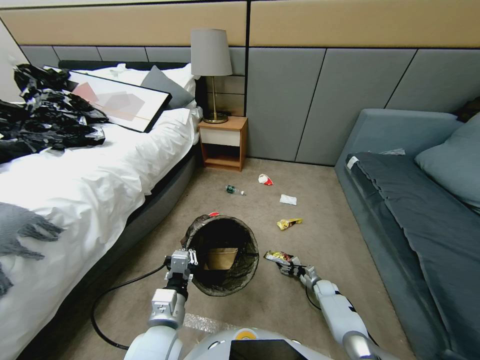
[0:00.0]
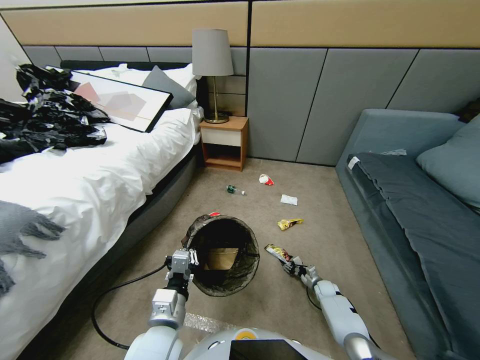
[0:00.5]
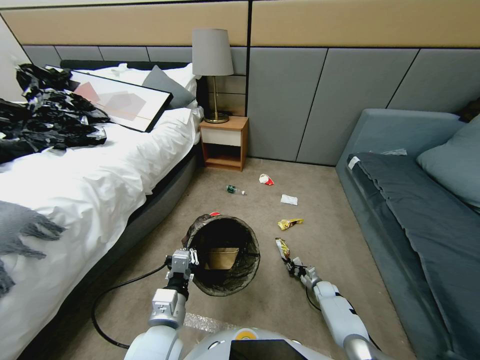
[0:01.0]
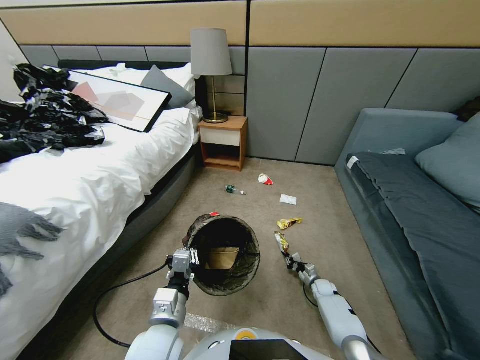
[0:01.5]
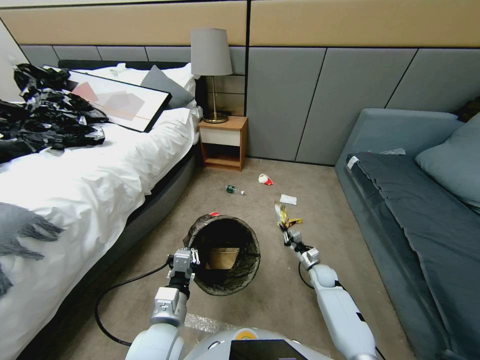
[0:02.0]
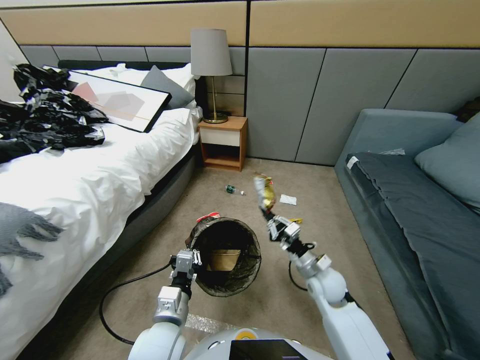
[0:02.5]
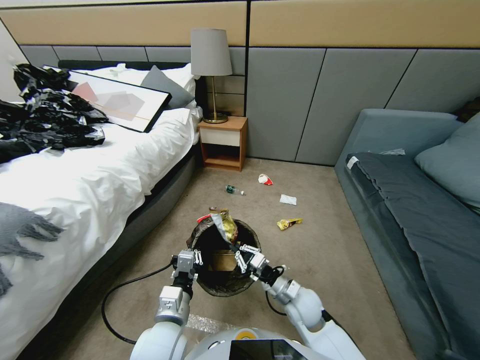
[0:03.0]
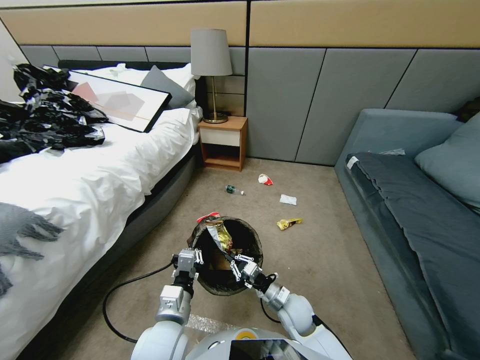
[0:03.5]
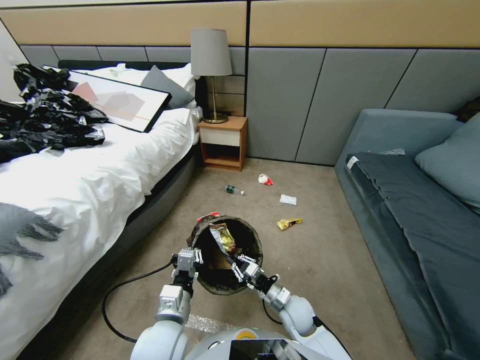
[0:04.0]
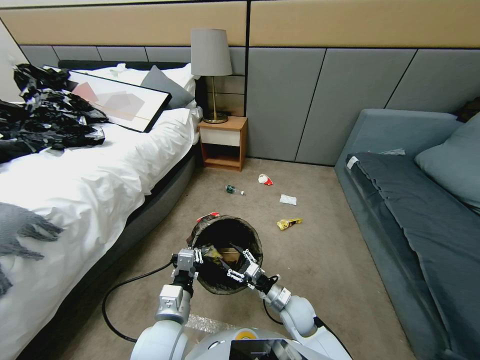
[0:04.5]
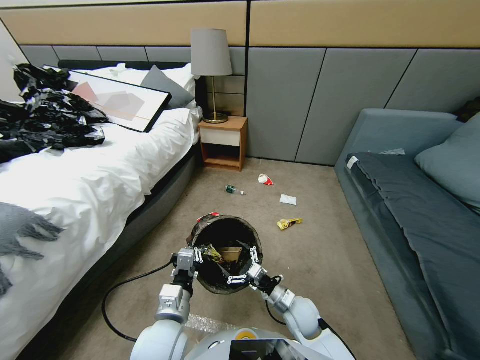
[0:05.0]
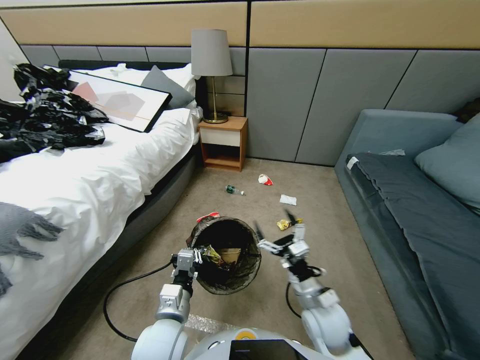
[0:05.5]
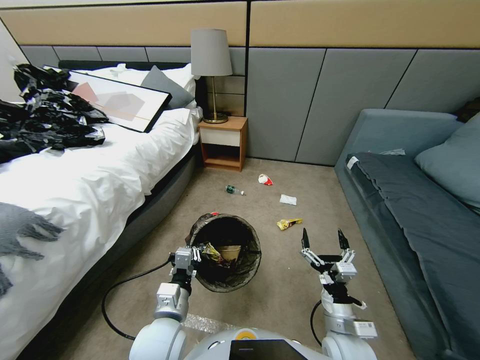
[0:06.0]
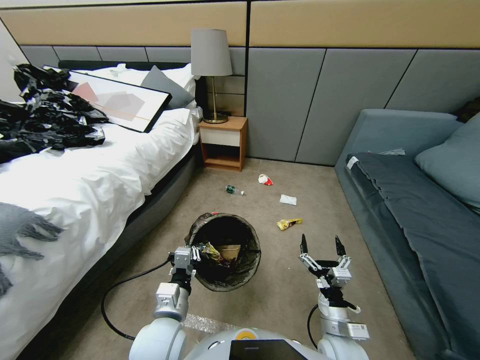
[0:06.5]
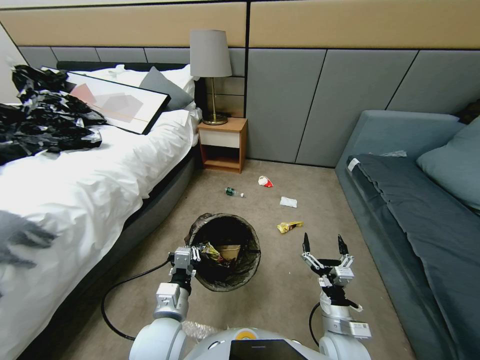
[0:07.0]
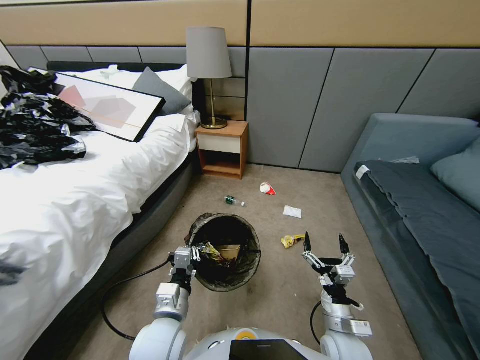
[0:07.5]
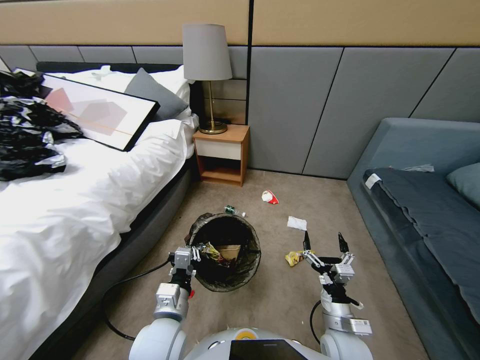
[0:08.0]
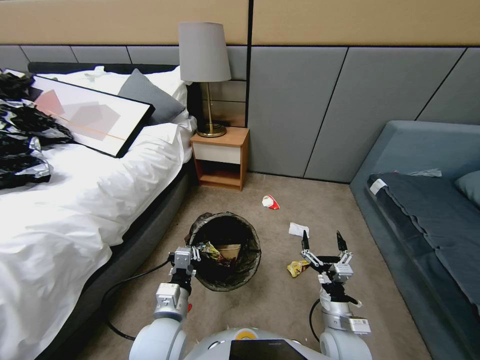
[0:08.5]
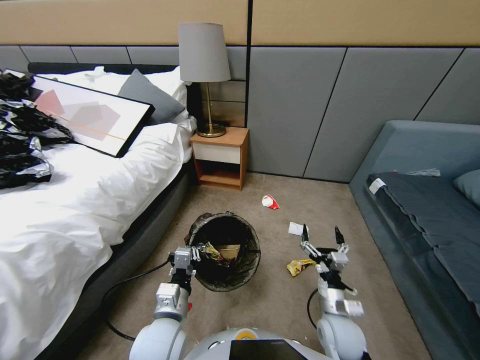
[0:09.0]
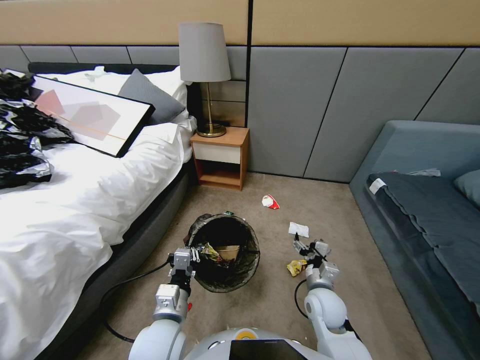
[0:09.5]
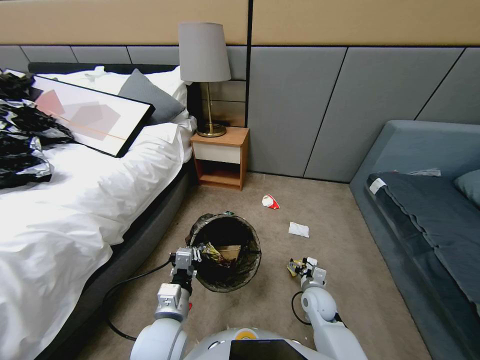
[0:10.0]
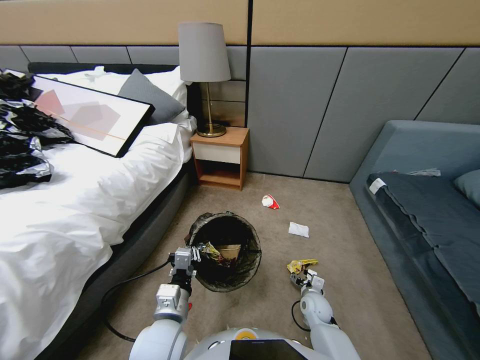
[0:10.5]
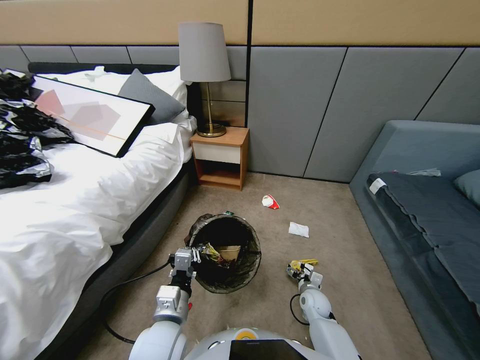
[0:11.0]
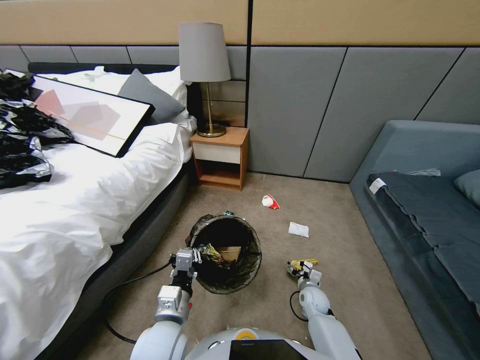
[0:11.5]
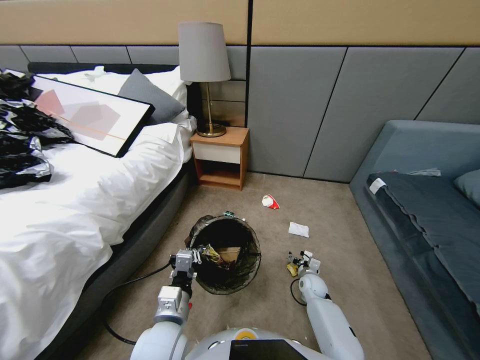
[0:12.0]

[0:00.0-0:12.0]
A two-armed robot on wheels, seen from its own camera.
Task of the whole recording: Pick up the trash bin, then pick up the garbage from the floor and place it into the trash bin.
0.0 to 2.0 s: The right gripper shifts approximately 20 cm upward and to the left, and closes.
2.0 to 4.0 s: The right gripper is displaced to the left and backward by approximately 20 cm.
4.0 to 6.0 s: The right gripper goes roughly 15 cm backward, upward and to the right, and opens up.
8.0 to 10.0 s: The right gripper is displaced forward and downward by roughly 15 cm.
10.0 to 12.0 s: The right gripper shifts roughly 10 cm forward and downward.

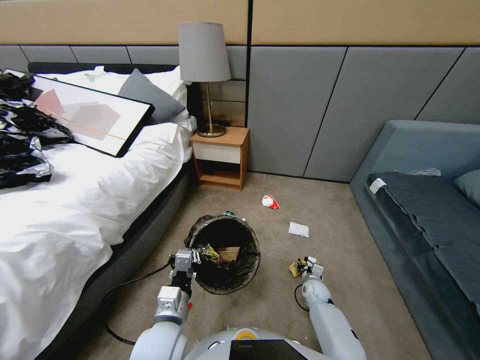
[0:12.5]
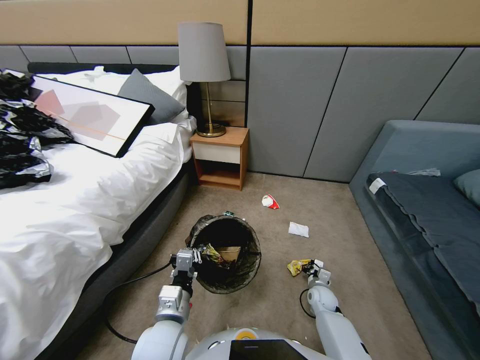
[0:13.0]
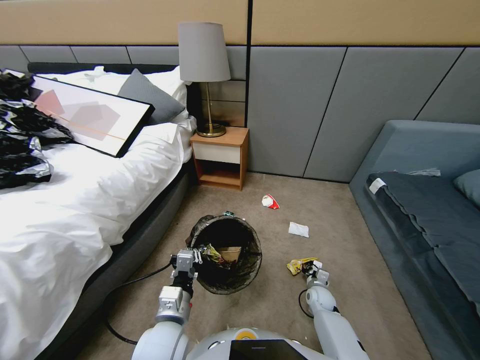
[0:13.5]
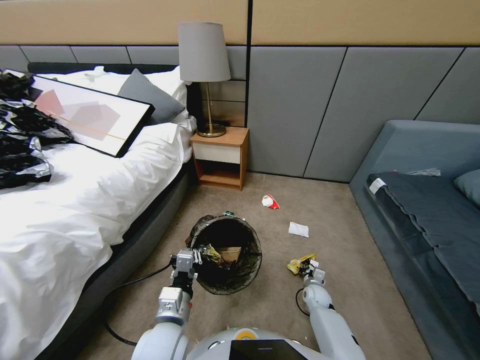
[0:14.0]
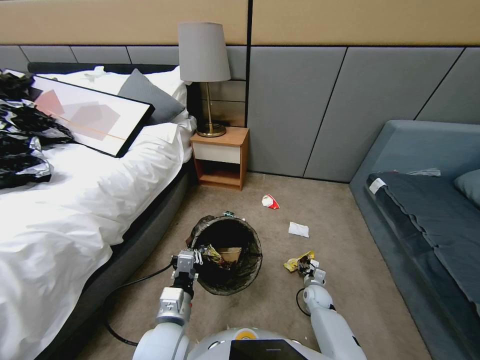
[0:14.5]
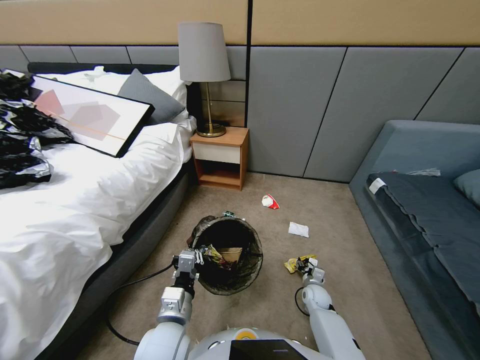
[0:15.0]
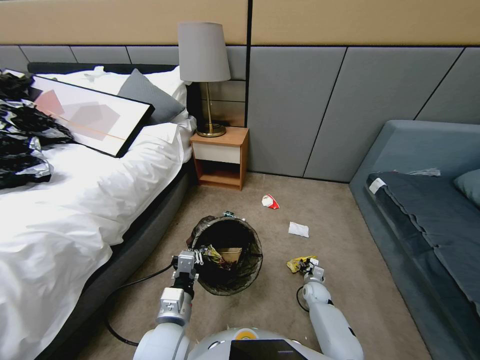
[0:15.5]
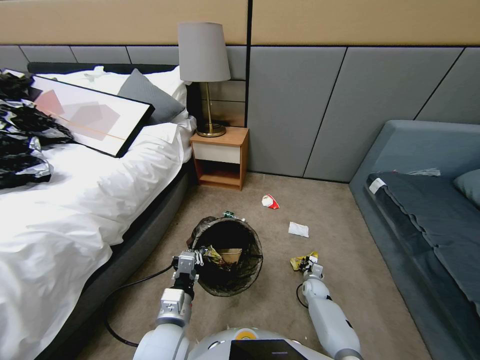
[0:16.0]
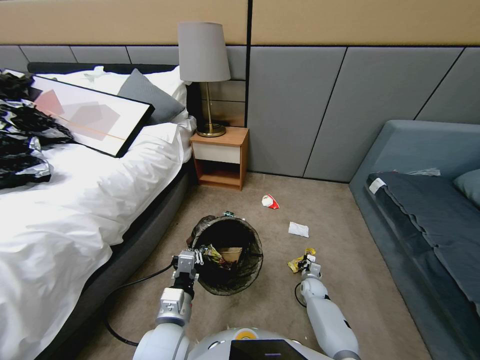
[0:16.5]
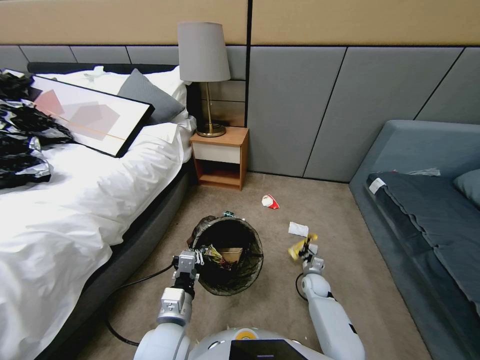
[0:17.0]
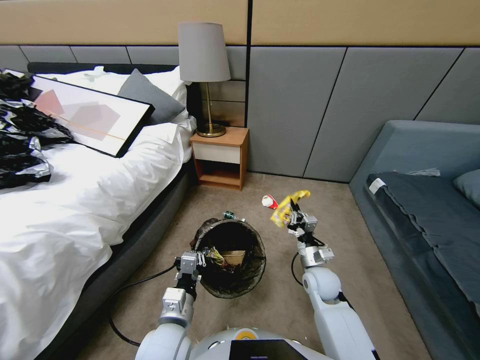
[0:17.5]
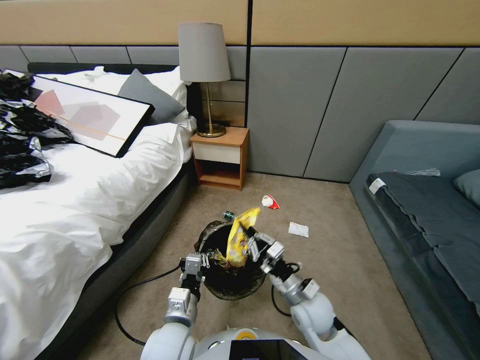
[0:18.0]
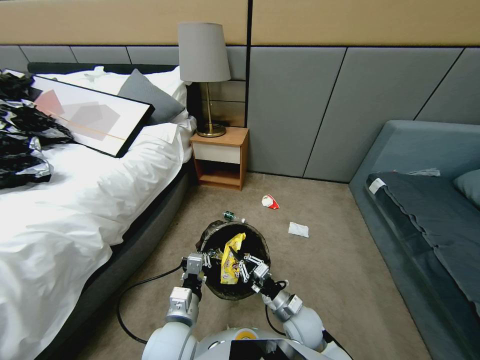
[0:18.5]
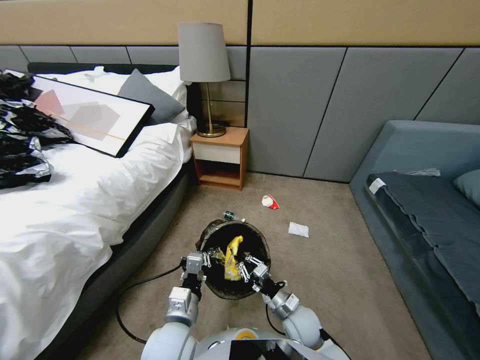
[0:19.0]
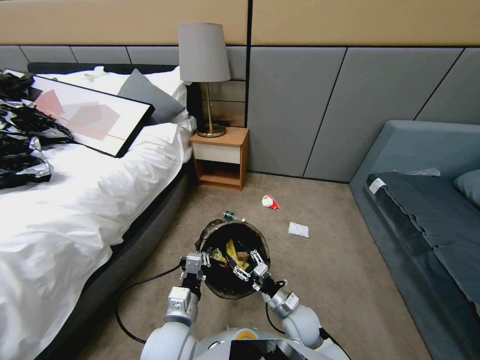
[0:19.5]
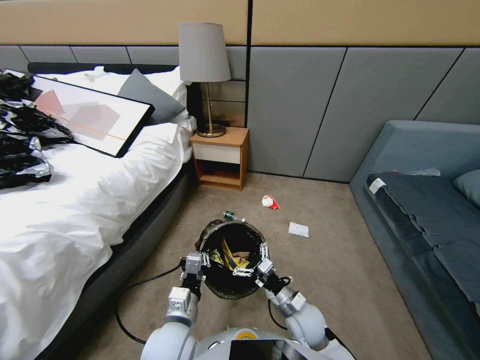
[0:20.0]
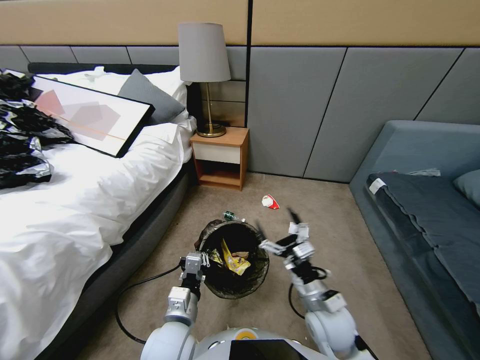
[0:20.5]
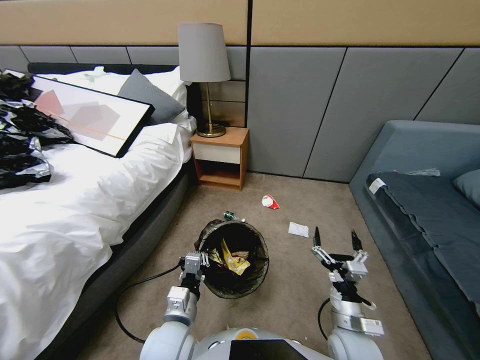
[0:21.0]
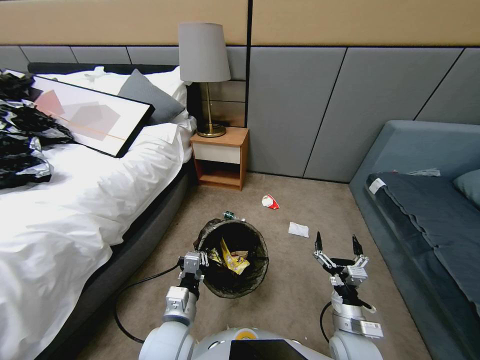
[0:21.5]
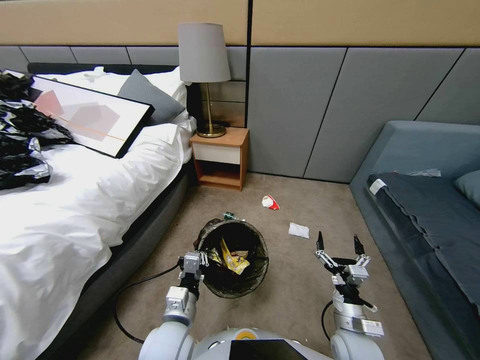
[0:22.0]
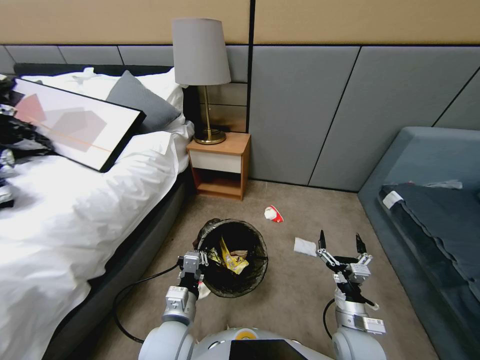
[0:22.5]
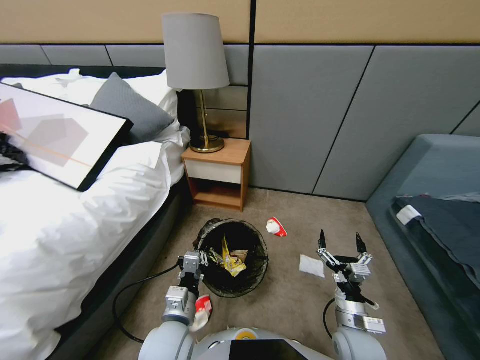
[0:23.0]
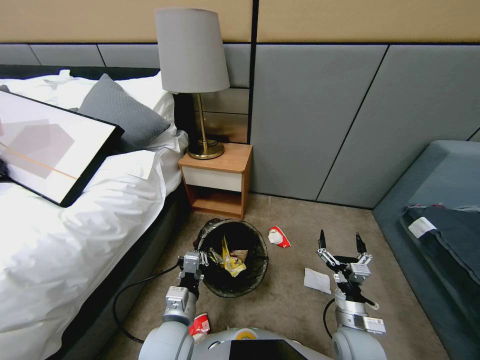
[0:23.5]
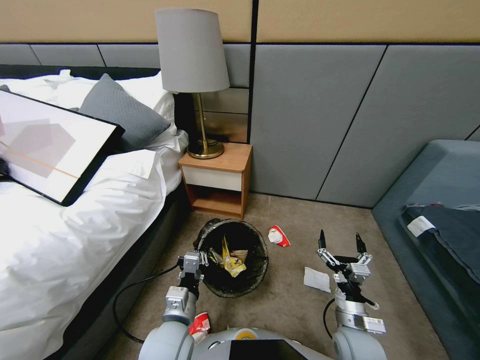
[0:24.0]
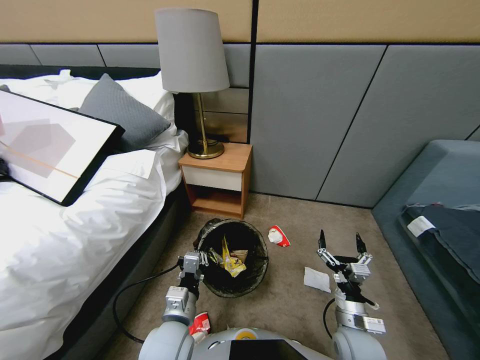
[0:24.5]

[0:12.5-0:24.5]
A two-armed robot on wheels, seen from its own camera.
Task of the whole recording: Pick up the trash bin, then pick up the garbage from the floor and place it into the trash bin.
12.5 to 14.5 s: The grippers stay close to where they were, moving slightly.
14.5 to 16.5 s: The right gripper closes up.
16.5 to 18.5 s: The right gripper is displaced upward, to the left and backward by approximately 25 cm.
18.5 to 20.5 s: The right gripper heads upward, covering some 10 cm, and opens.
20.5 to 22.5 s: The right gripper travels to the right and downward by approximately 10 cm.

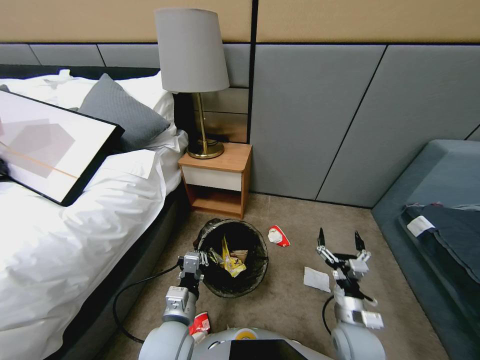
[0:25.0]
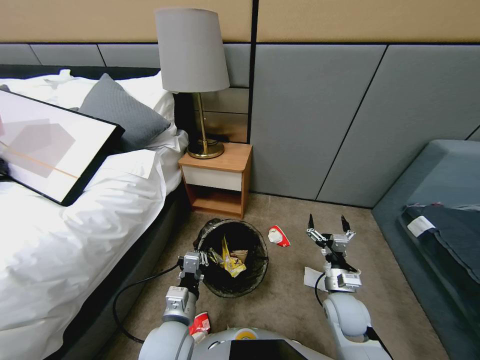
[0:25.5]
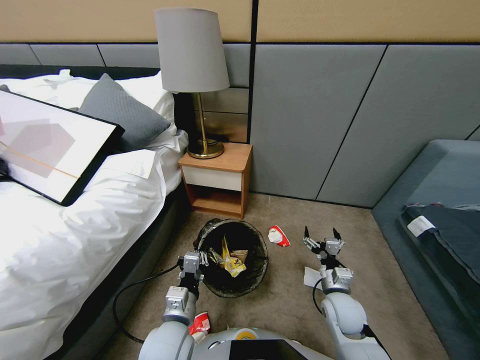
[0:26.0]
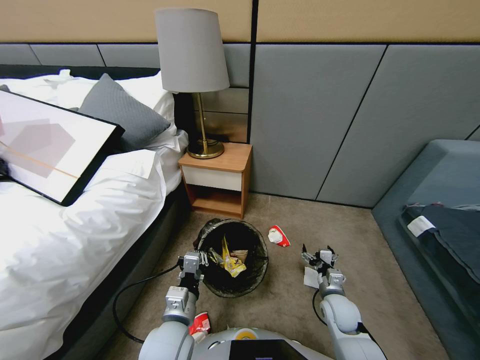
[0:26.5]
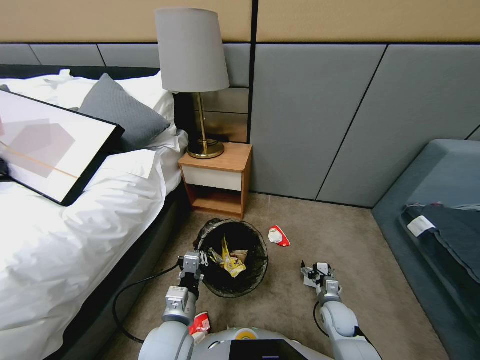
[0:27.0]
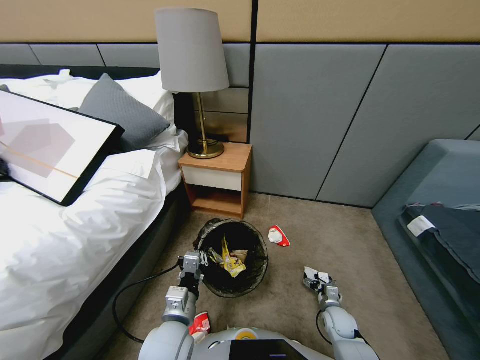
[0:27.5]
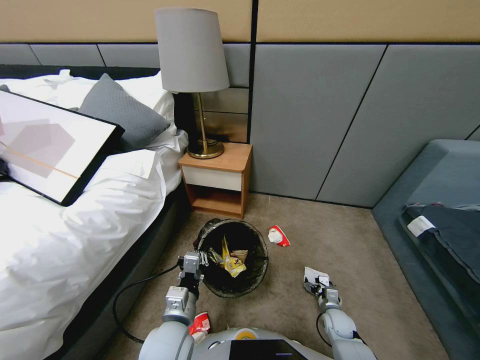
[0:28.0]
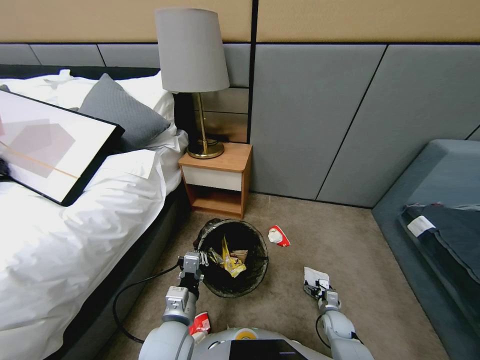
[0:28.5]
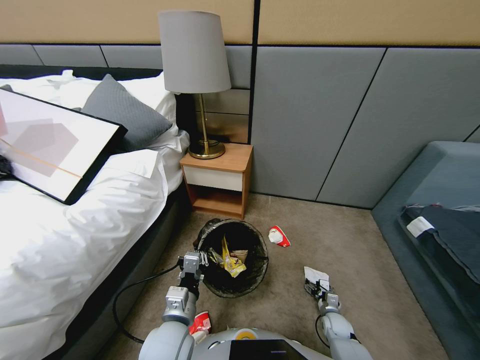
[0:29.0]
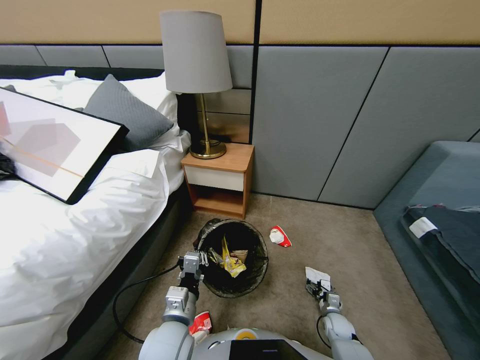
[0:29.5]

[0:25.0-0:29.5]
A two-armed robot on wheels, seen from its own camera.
Task of the whole recording: Pick up the trash bin, then pick up the garbage from the floor and place it into the trash bin.
25.0 to 27.0 s: The right gripper goes roughly 15 cm downward.
27.0 to 29.5 s: The right gripper goes approximately 10 cm downward.
